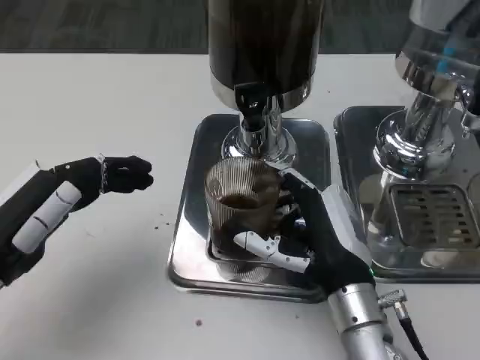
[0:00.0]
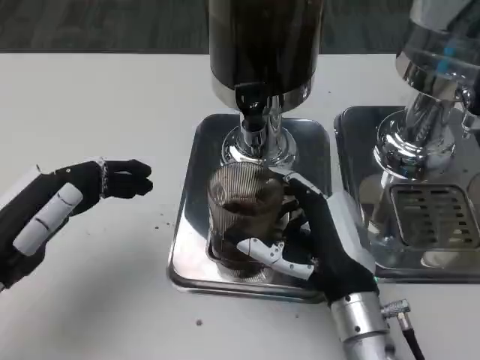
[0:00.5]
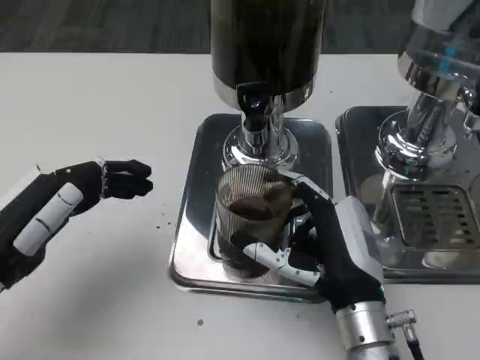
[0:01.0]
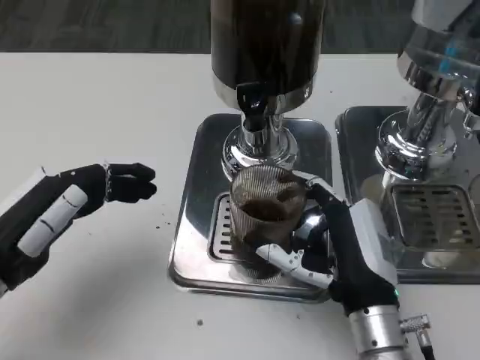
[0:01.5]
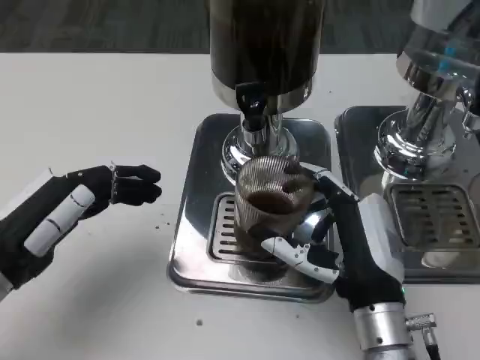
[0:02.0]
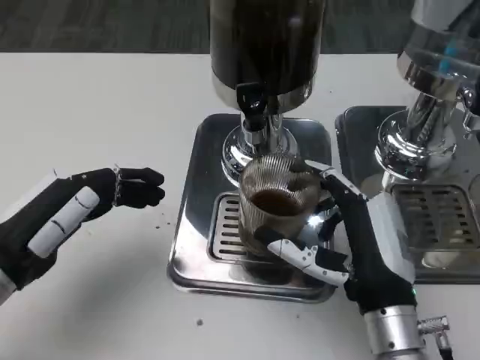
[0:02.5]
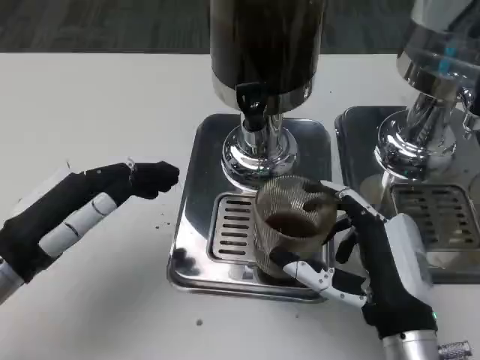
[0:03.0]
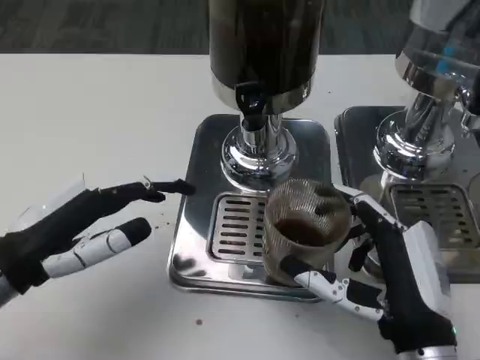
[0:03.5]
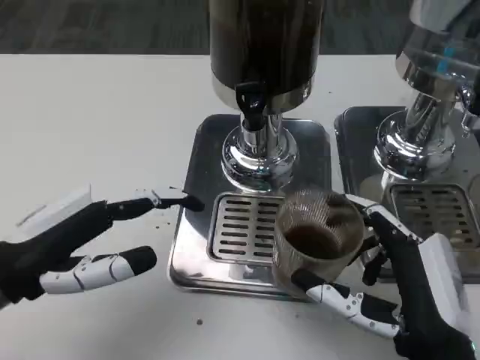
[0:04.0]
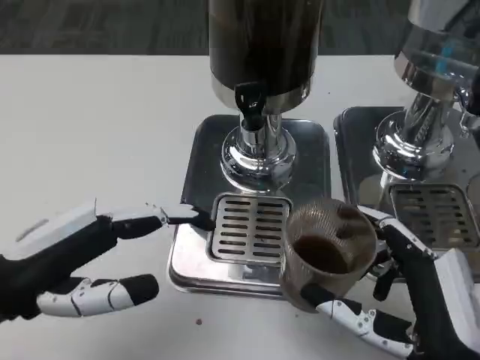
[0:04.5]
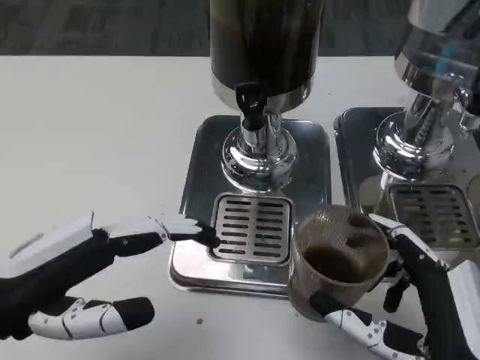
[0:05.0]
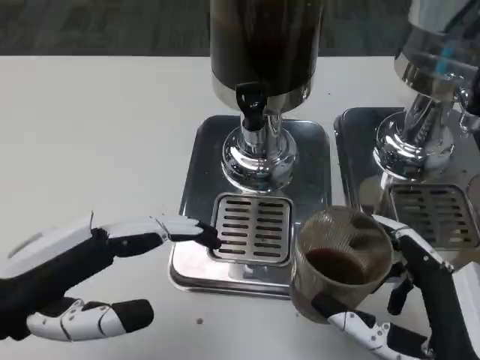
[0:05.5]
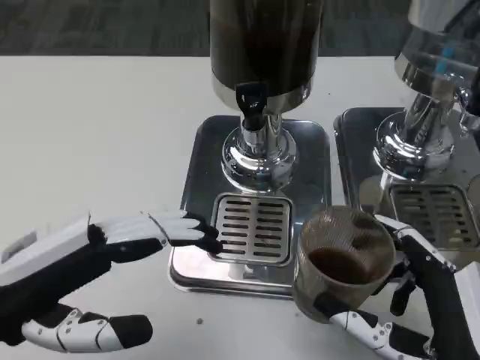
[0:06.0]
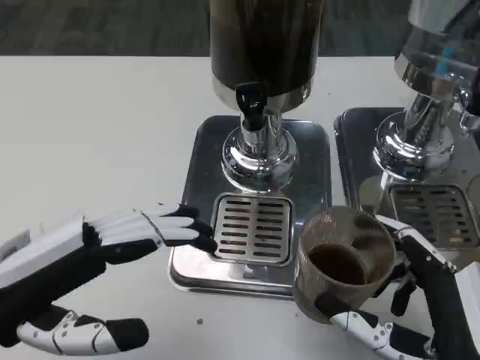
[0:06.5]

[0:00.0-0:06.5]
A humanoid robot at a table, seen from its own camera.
Task of the whole recording: Grasp the cup under the faucet to collect the drink, then remove the cup.
0:00.0 to 0:02.0: There are only small adjustments of the hands.
0:02.0 to 0:04.5: The right hand travels backward by roughly 10 cm.
0:04.5 to 0:06.5: There are only small adjustments of the hands.

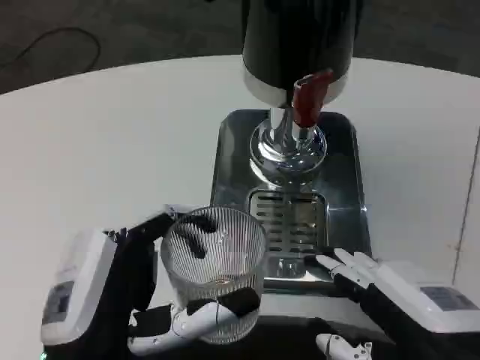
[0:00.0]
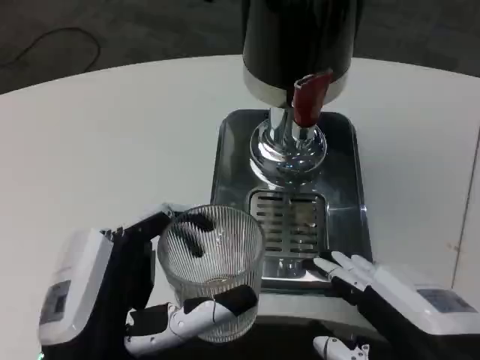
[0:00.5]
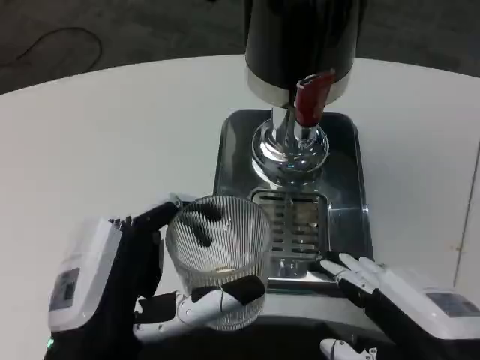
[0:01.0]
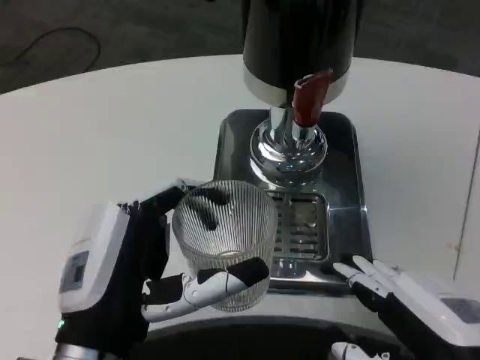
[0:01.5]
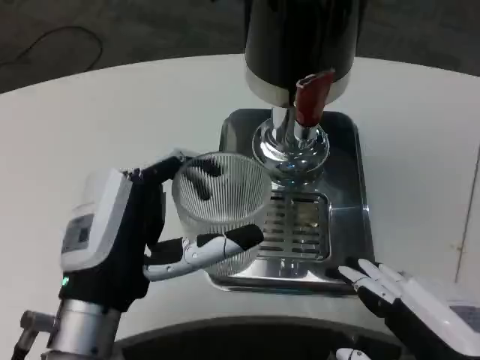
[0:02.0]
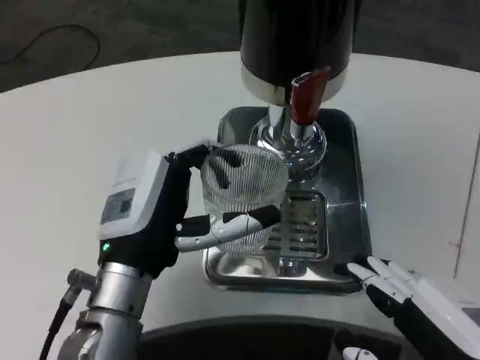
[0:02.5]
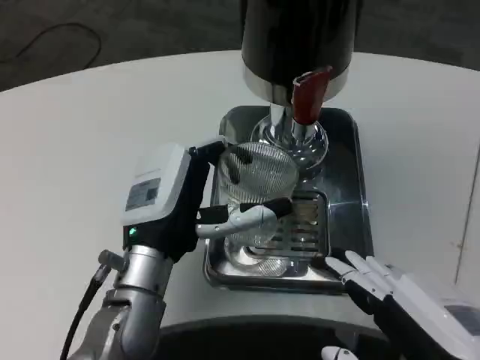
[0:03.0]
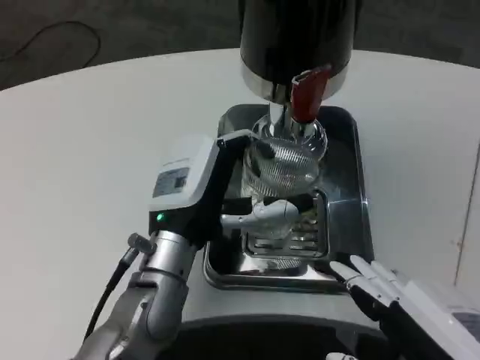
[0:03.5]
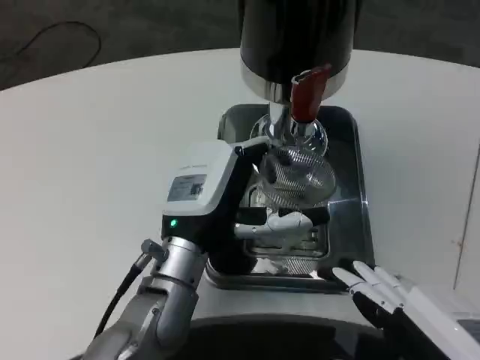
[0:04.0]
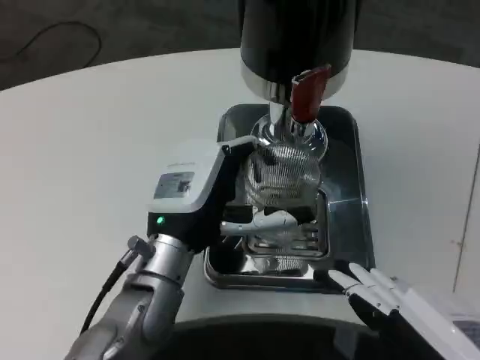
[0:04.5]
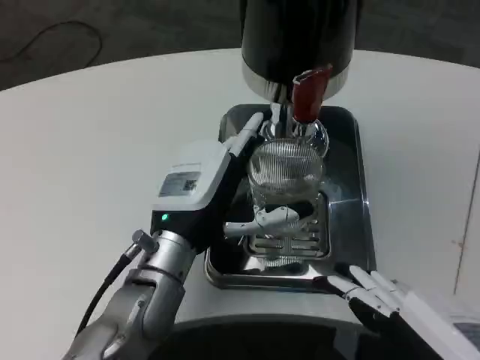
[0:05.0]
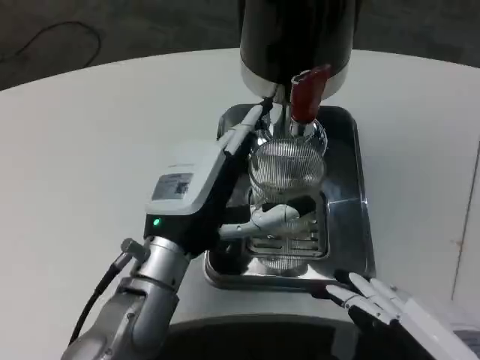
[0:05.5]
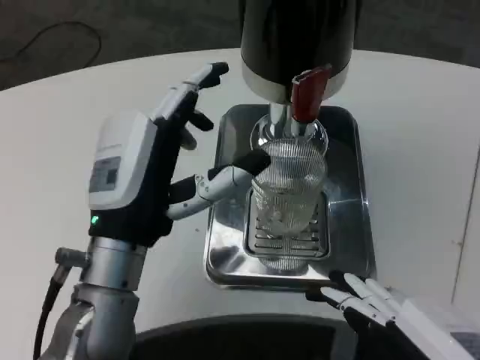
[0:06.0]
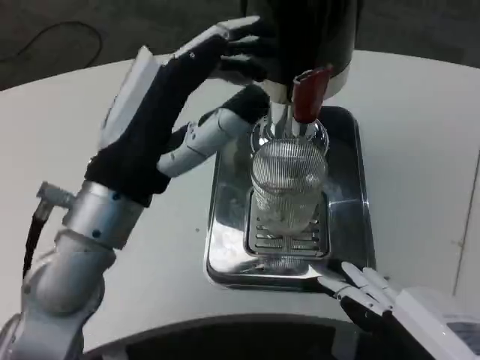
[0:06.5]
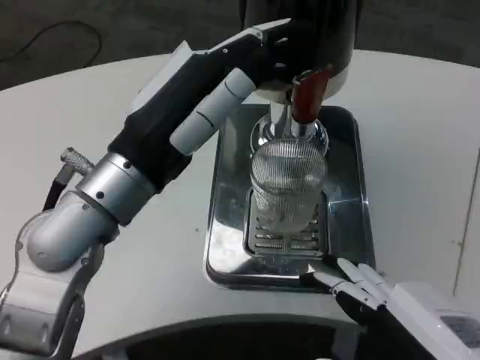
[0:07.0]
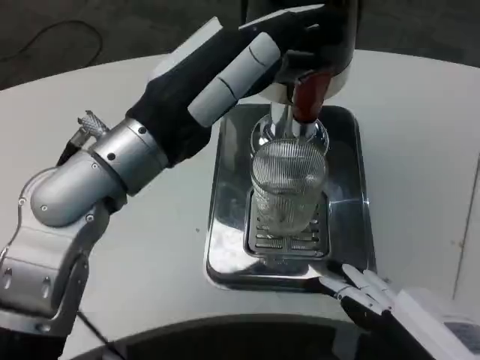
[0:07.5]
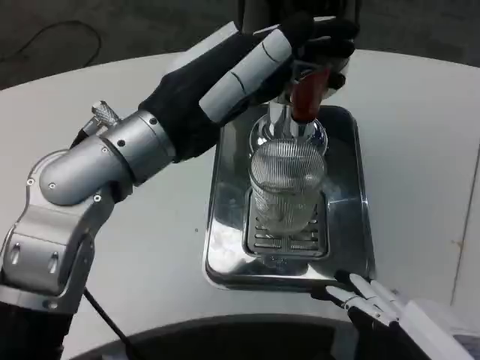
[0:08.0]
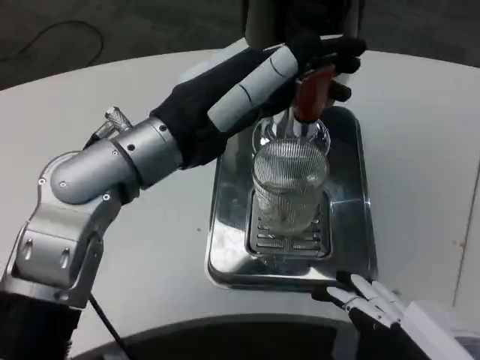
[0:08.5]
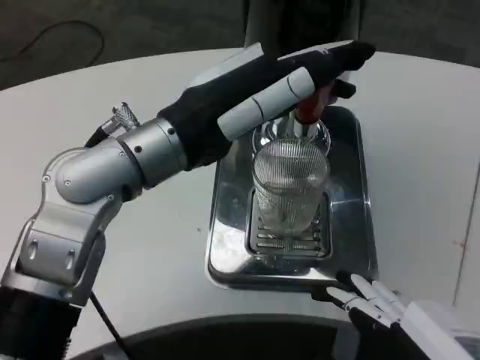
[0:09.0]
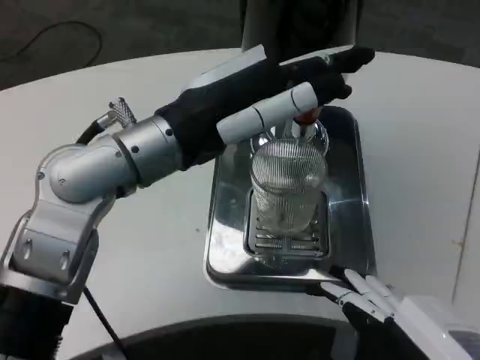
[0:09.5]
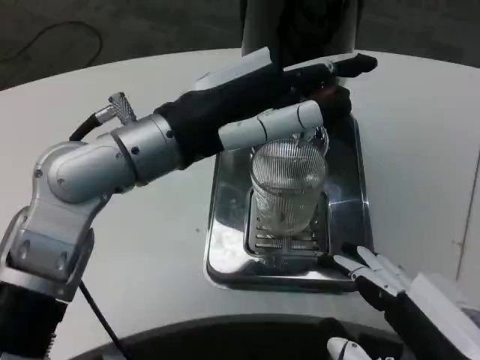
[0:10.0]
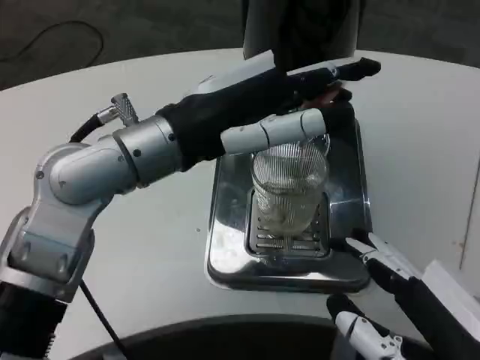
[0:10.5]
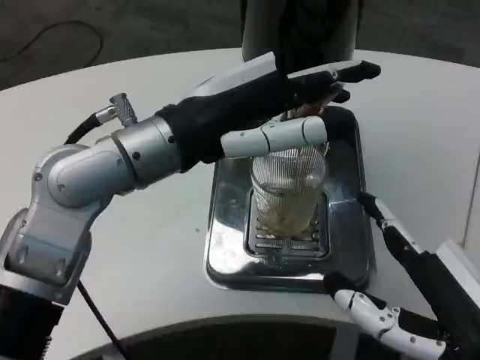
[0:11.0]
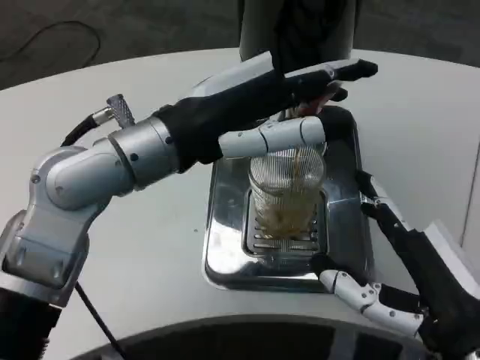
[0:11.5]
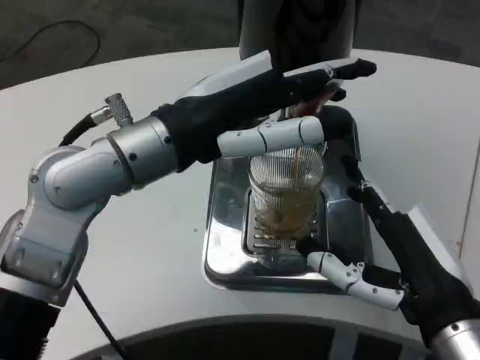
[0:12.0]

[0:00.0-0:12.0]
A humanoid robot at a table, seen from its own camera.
Task of the whole recording: Grasp the cup under the faucet to collect the drink, then remove the cup.
0:00.0 to 0:02.0: The left hand heads forward, covering approximately 5 cm.
0:02.0 to 0:04.0: The left hand is displaced forward and to the right by roughly 10 cm.
0:04.0 to 0:06.0: The left hand changes place by about 5 cm.
0:06.0 to 0:08.0: The left hand moves upward, roughly 10 cm.
0:10.0 to 0:12.0: The right hand shifts about 10 cm forward.

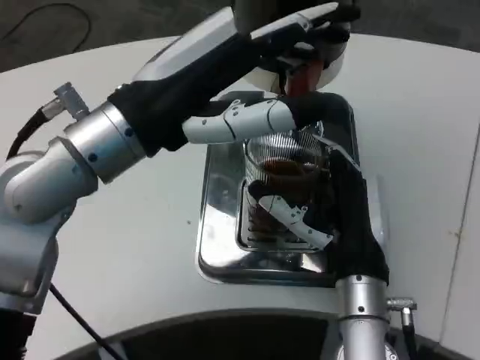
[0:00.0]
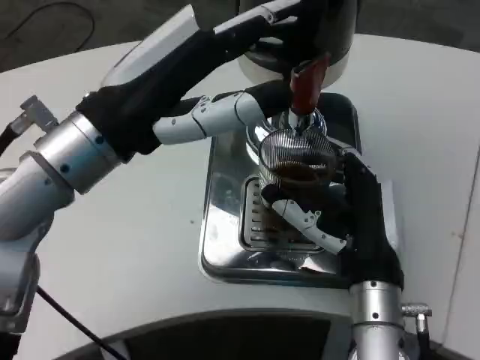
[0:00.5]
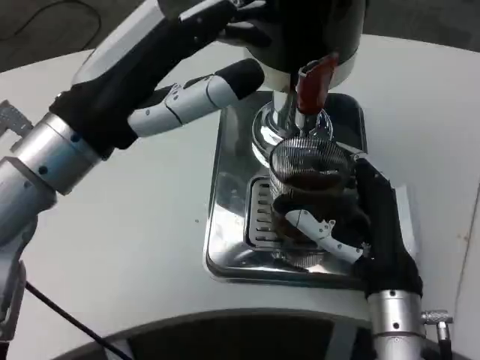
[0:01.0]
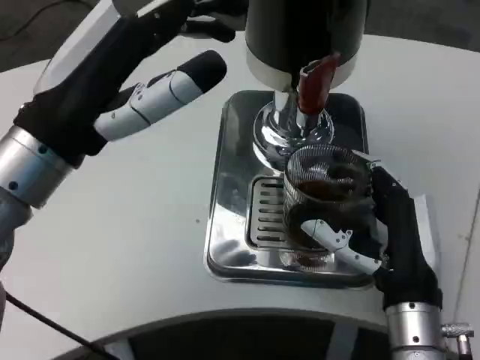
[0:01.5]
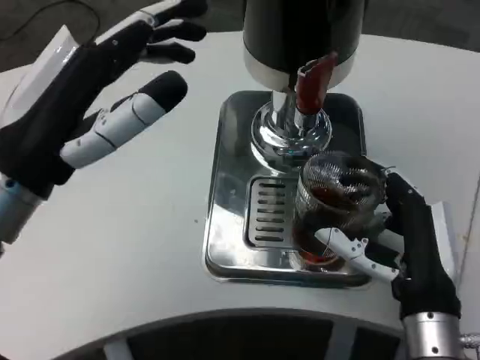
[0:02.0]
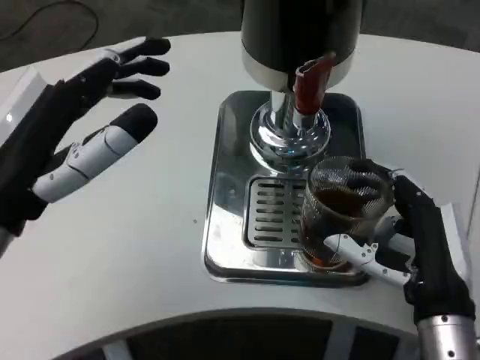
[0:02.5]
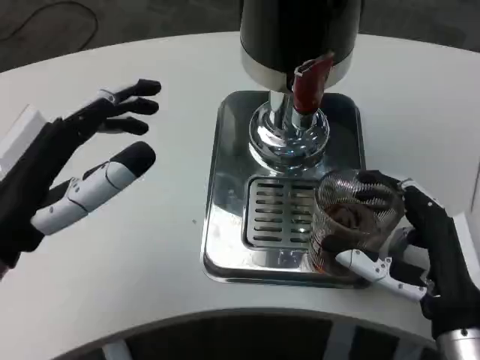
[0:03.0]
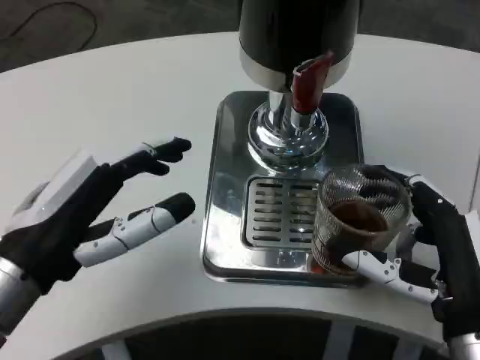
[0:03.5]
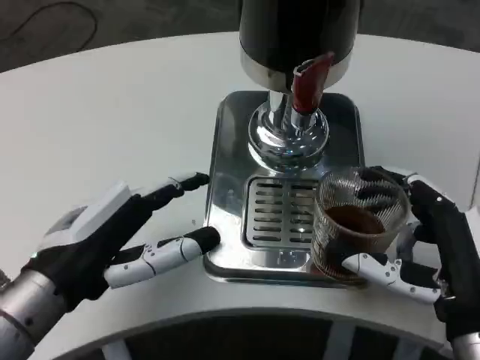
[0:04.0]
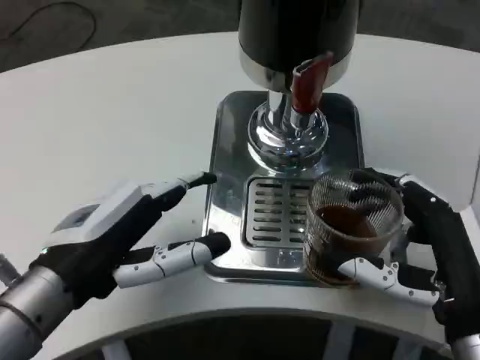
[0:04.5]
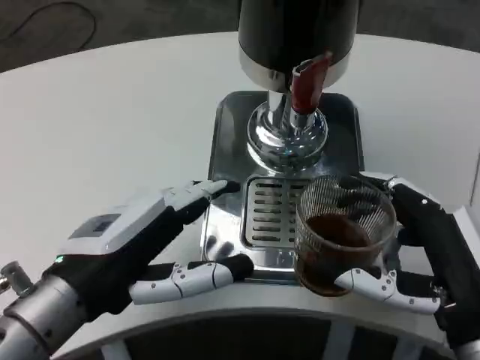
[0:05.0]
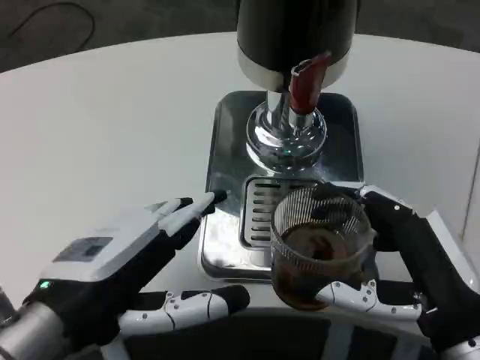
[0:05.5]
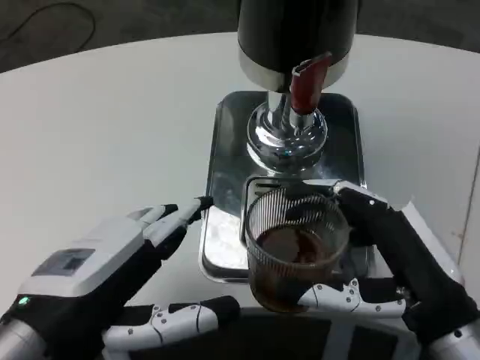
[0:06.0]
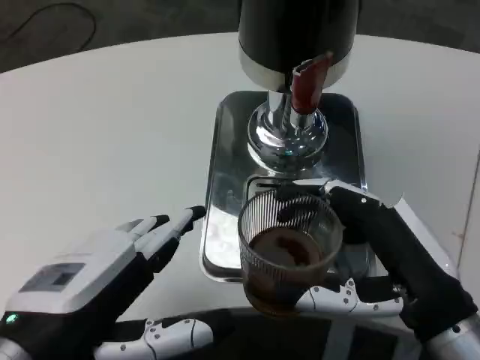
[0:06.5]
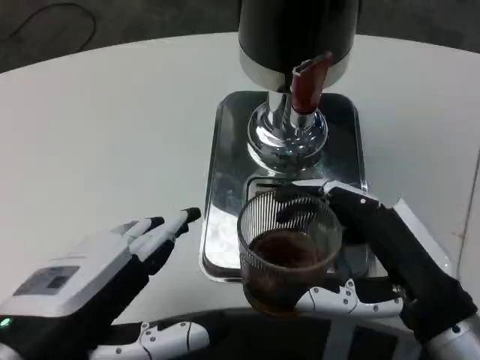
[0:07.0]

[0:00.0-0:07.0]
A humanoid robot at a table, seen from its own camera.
Task of the whole recording: Grasp the cup under the faucet to collect the drink, then remove the cup.
0:00.0 to 0:02.0: The right hand goes about 5 cm to the right; the left hand travels to the left by roughly 5 cm.
0:02.0 to 0:03.5: The left hand travels downward by roughly 5 cm.
0:05.0 to 0:07.0: The left hand is displaced backward by approximately 5 cm.
